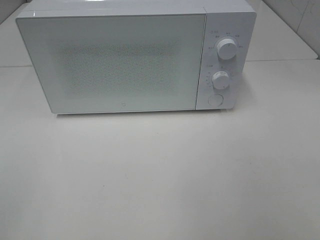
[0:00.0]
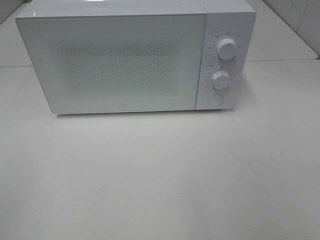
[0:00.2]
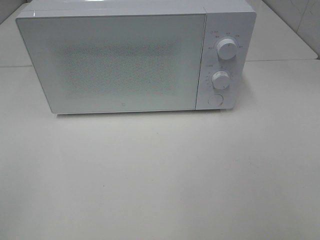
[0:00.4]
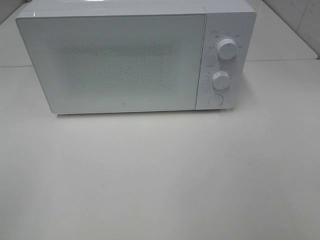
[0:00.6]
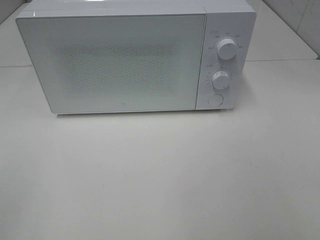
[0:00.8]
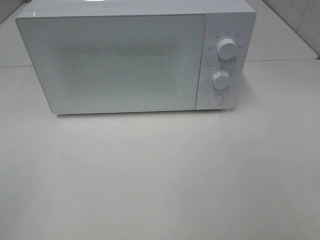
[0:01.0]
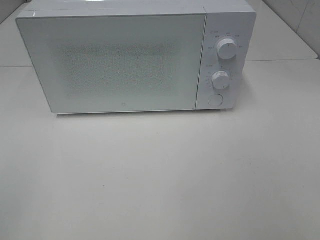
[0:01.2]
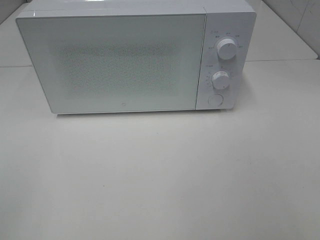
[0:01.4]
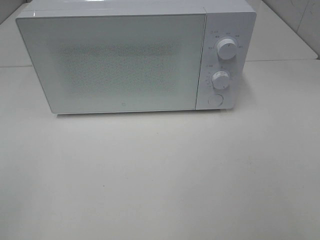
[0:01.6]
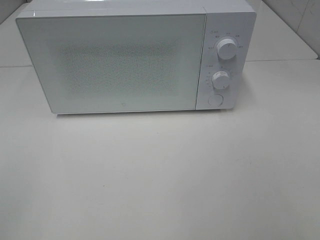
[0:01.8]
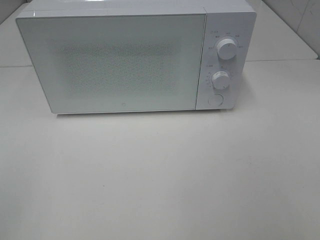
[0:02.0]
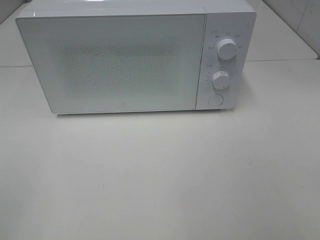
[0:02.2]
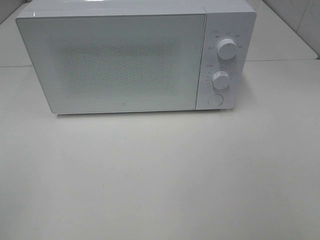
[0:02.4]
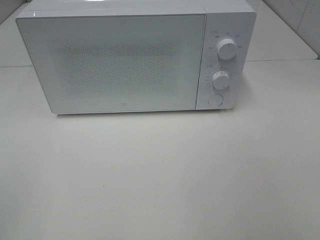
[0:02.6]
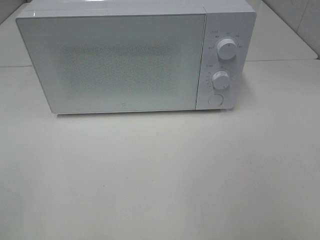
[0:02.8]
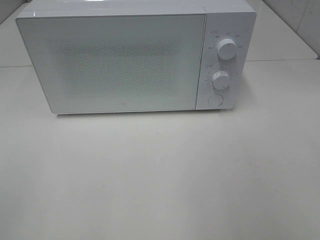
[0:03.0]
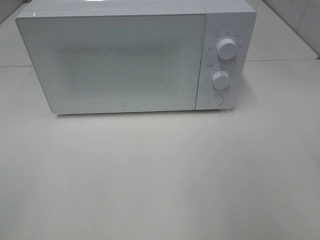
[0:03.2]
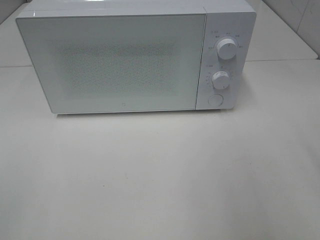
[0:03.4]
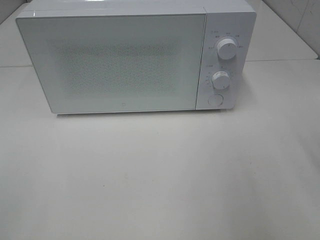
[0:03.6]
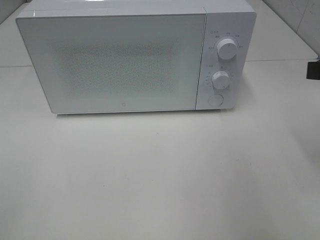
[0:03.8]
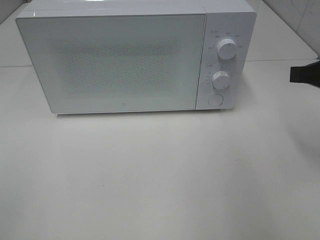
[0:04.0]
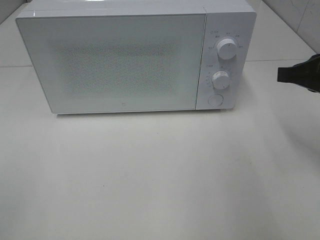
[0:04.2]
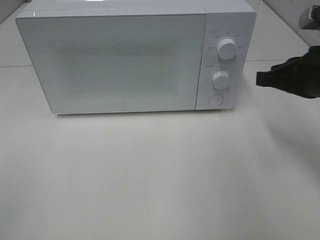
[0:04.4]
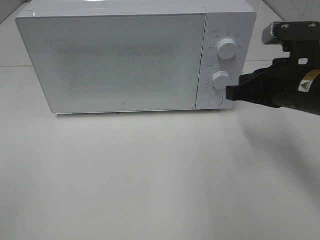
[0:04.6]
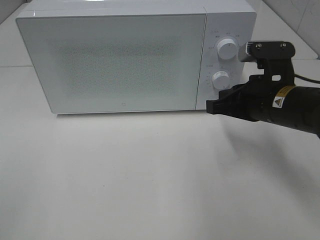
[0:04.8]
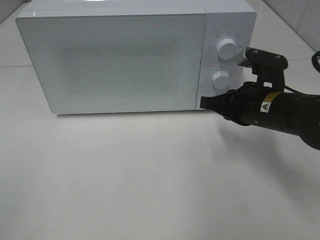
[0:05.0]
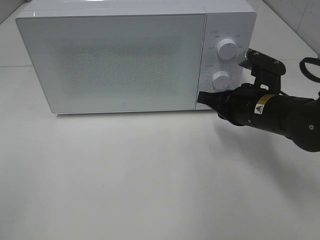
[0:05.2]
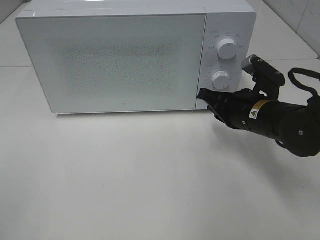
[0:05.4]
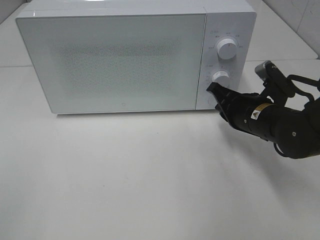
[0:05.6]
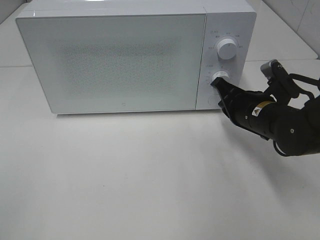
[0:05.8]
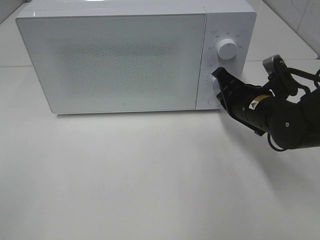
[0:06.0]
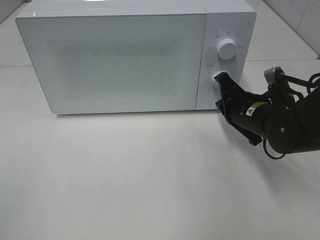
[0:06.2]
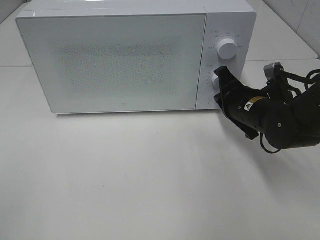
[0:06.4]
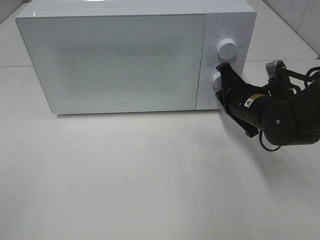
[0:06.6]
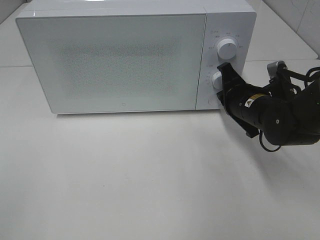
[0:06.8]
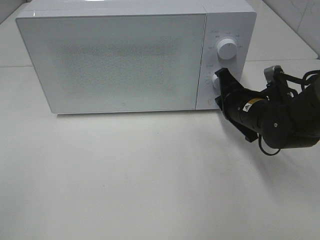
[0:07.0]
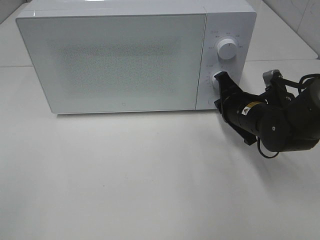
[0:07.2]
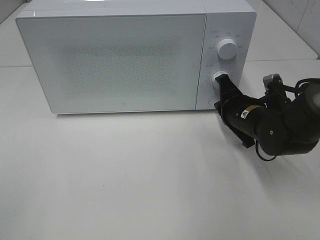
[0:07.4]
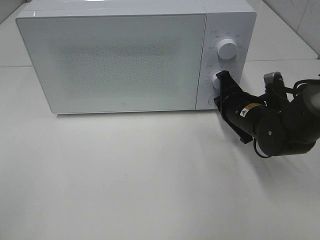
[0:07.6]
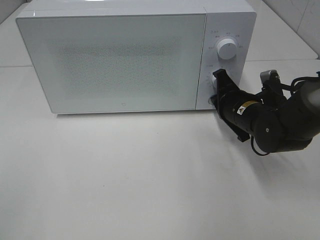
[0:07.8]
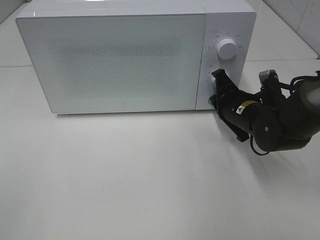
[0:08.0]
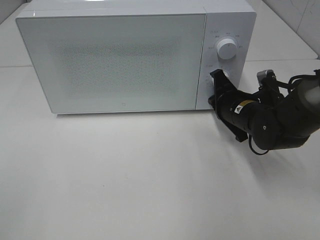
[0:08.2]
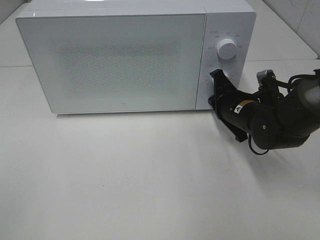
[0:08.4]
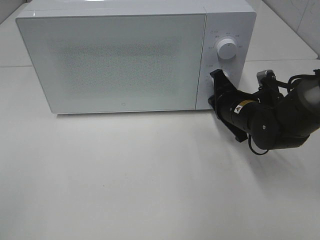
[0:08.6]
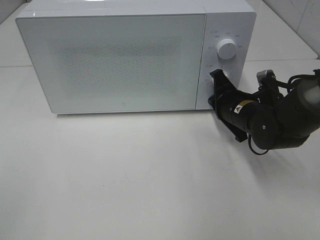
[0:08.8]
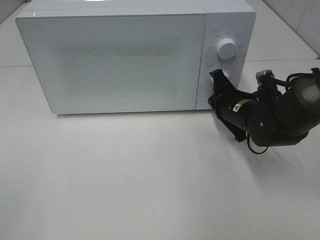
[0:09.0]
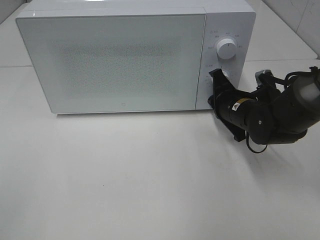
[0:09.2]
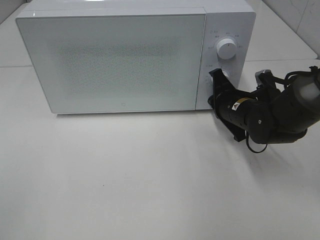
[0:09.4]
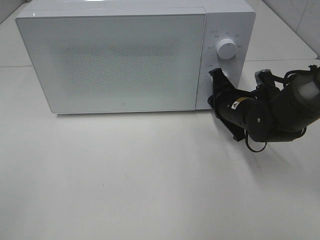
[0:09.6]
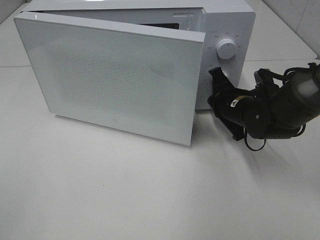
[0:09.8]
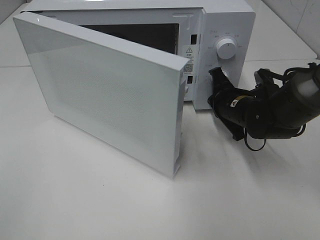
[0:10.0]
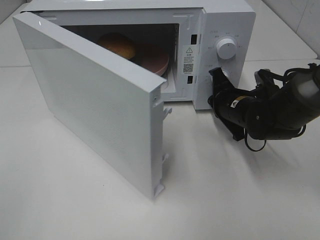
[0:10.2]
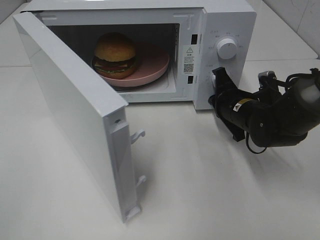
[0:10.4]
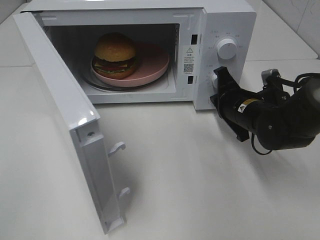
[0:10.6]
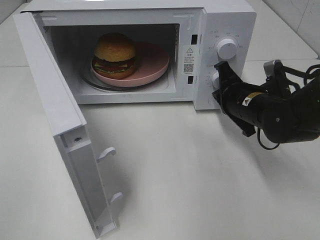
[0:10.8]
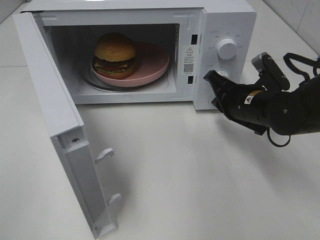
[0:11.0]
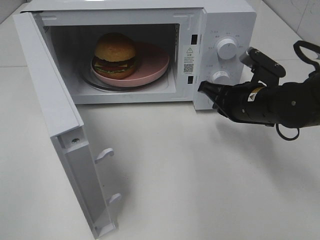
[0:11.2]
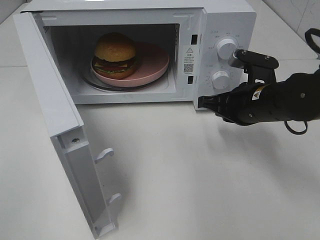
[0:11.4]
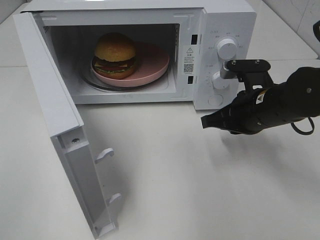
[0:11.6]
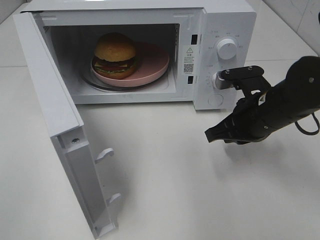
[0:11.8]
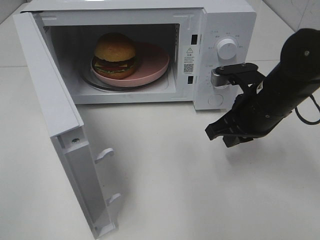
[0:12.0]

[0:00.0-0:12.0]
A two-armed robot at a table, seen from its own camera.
Task of the whole recording: Heat the burger.
Step, 0:00.0 to 0:10.8: Right hand: press the switch.
0:03.0 to 0:04.4: The right gripper is displaced forward and downward by approximately 20 cm, and closes its fingers.
0:04.4 to 0:06.0: The right gripper goes about 15 cm downward, to the left and forward.
0:06.0 to 0:09.0: The grippers move only a little.
0:10.4 to 0:12.0: The right gripper heads upward and backward, covering roughly 10 cm.

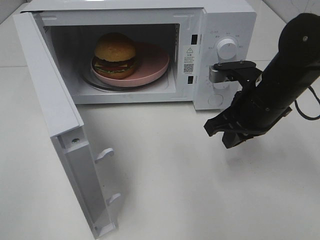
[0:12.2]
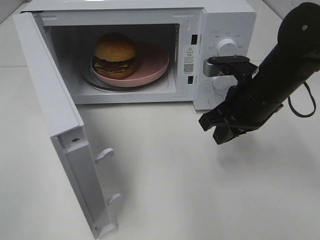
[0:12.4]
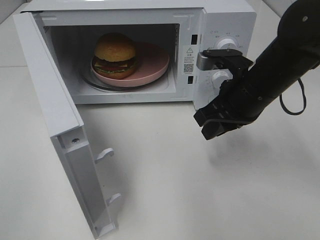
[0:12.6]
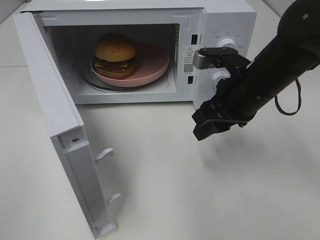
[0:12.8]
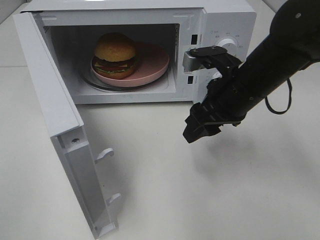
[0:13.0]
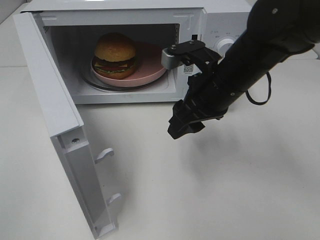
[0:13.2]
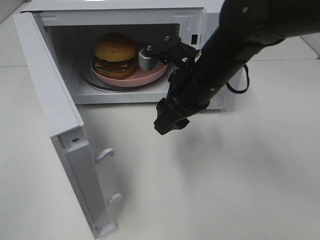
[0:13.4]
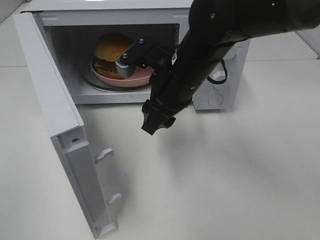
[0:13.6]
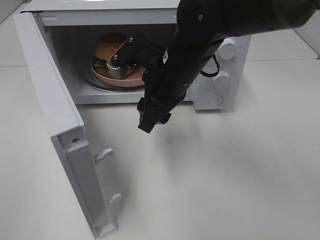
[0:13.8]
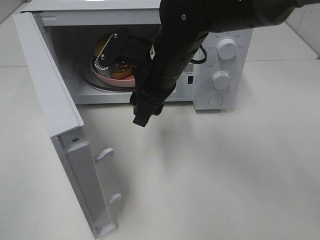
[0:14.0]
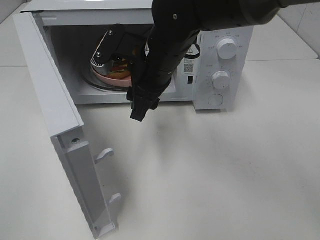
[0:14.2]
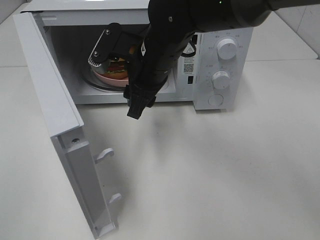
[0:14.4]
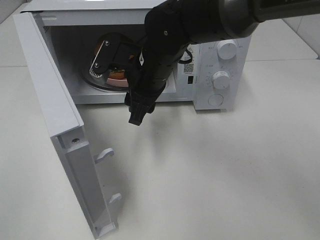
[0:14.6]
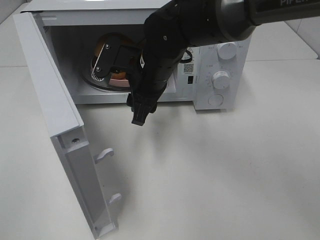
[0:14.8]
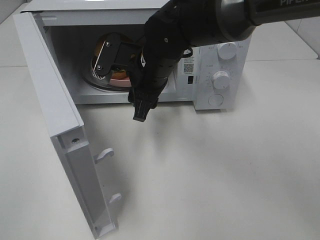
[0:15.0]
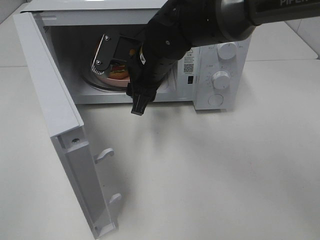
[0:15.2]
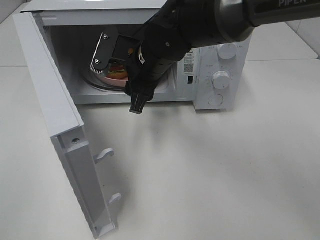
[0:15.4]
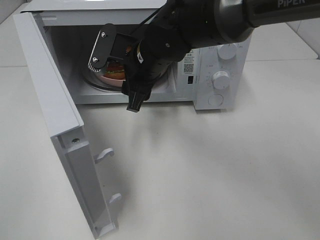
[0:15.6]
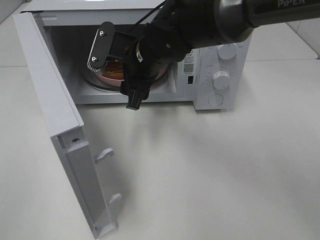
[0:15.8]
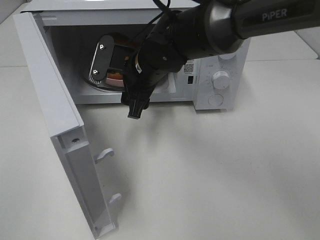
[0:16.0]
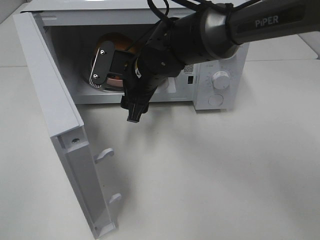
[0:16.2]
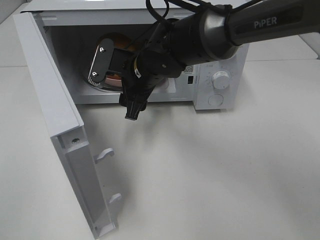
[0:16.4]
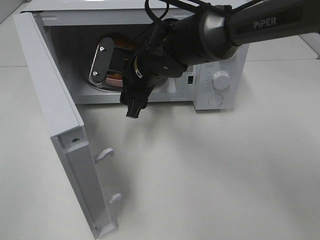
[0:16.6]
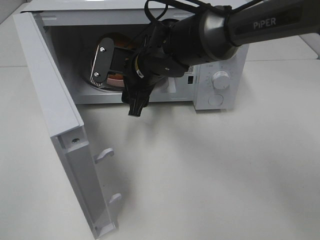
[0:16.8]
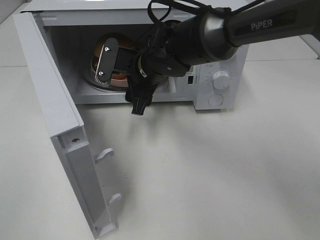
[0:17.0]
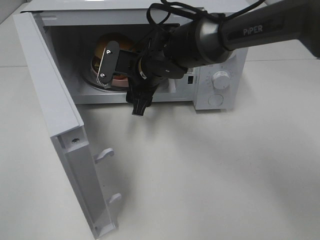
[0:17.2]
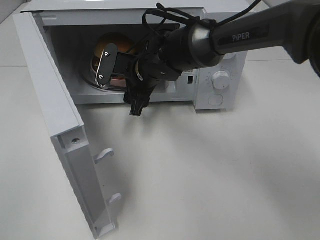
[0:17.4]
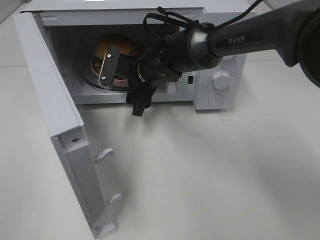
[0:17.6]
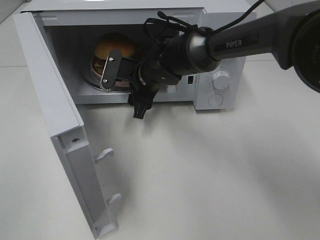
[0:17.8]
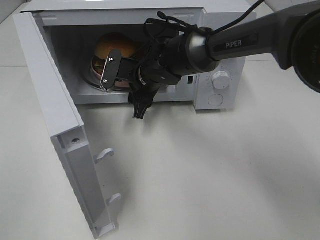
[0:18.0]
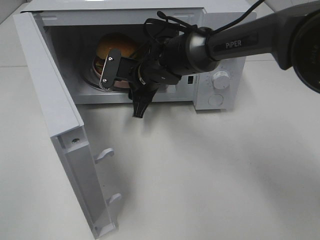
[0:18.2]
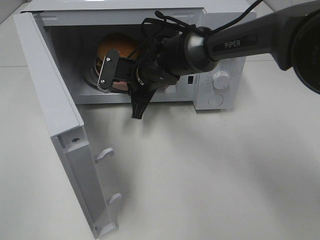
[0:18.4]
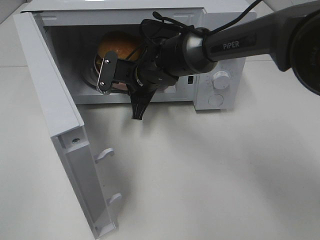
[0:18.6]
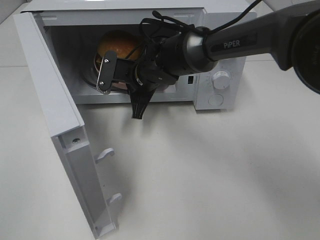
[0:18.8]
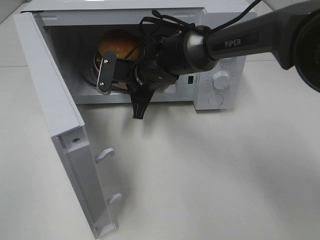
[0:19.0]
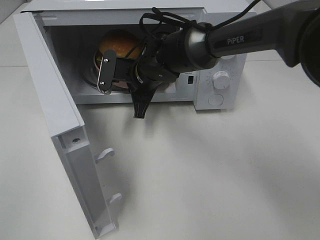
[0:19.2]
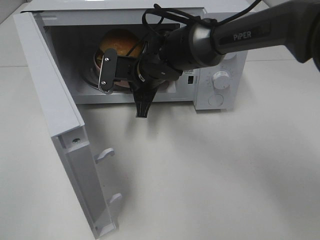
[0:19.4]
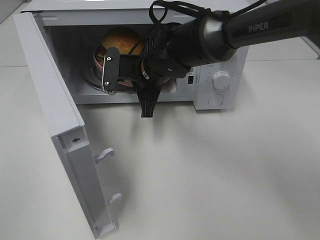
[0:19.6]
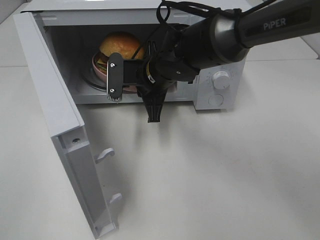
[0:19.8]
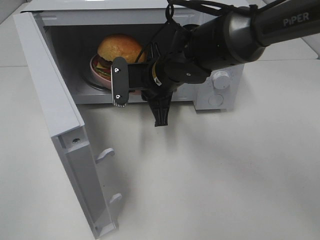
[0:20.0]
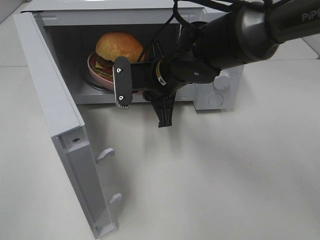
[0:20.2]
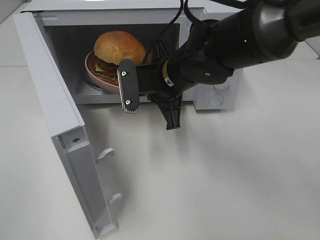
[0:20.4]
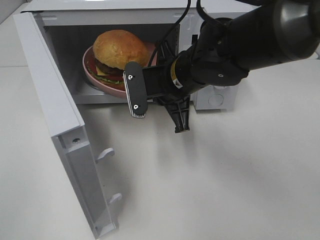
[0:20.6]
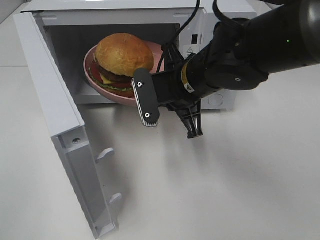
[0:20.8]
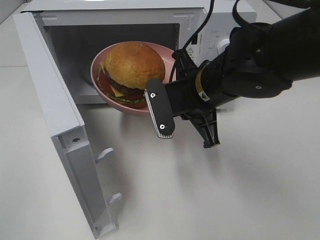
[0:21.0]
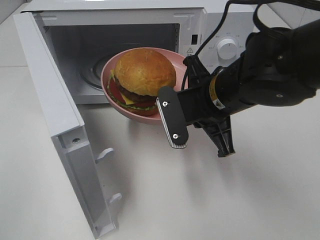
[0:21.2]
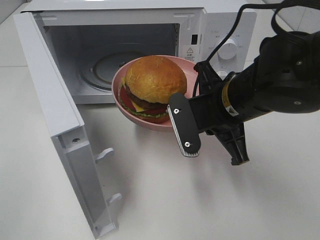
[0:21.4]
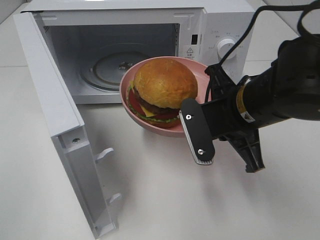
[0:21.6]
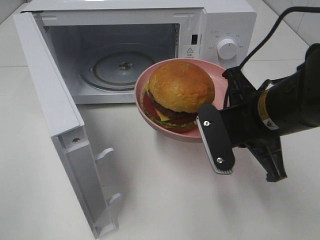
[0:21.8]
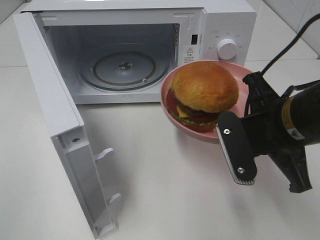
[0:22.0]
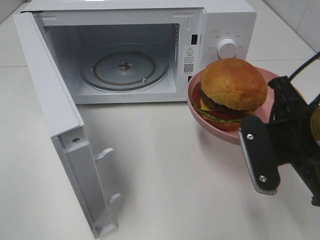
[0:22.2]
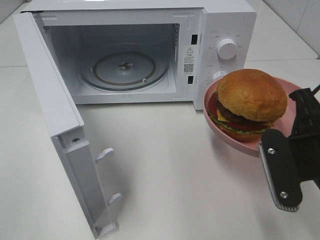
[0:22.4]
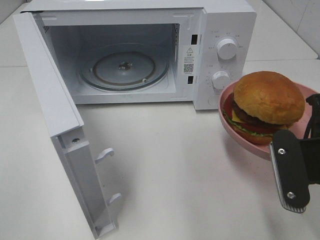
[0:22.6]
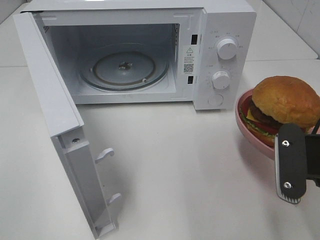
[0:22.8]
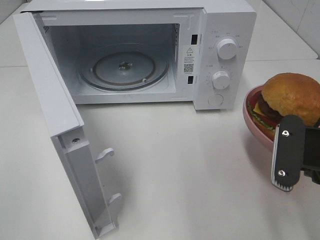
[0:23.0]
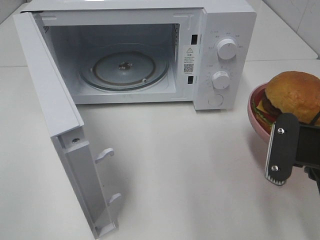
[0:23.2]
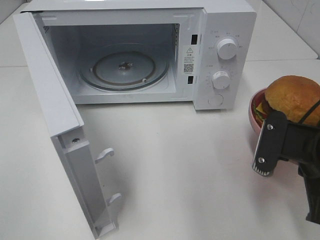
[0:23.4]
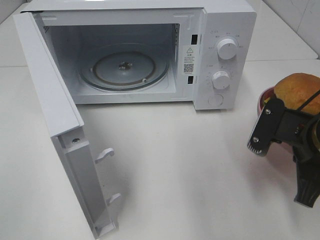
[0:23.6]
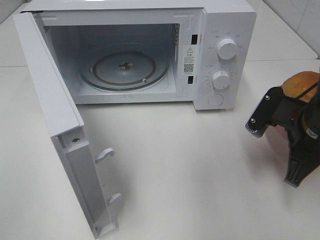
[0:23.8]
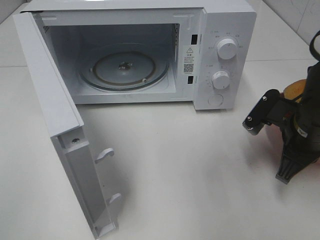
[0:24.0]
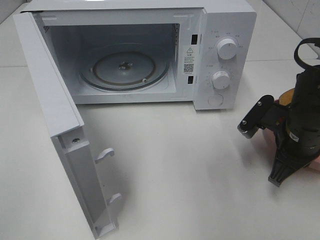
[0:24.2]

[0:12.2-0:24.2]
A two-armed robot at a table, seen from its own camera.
Task of the whole recording: Heat the burger.
Step, 0:12.2 to 0:18.6: Right hand: grab the plate with the hamburger.
0:12.2 to 0:13.8: The right gripper moves to the left, some 15 cm, and opens.
0:13.8 to 0:15.2: The right gripper changes place by about 5 cm.
0:15.2 to 0:16.6: The grippers make only small movements.
0:16.6 to 0:18.2: The right gripper changes place by approximately 5 cm, and closes up.
0:18.2 to 0:19.8: The right gripper shifts by some 5 cm, and closes.
0:19.8 to 0:21.2: The right gripper is displaced backward and to the right by some 15 cm.
0:21.2 to 0:22.6: The right gripper shifts roughly 15 cm to the right and backward.
0:22.6 to 0:24.2: The right gripper travels forward and downward by about 15 cm.
